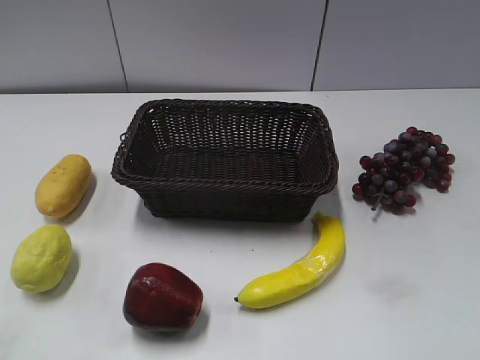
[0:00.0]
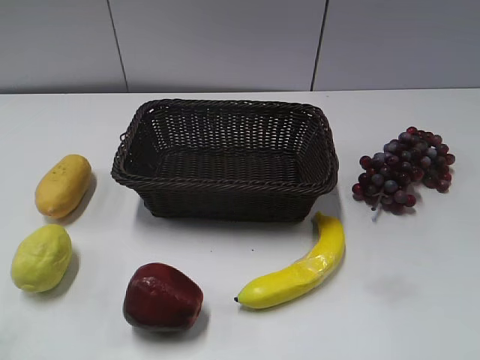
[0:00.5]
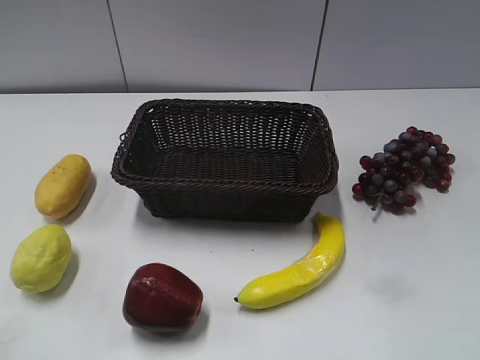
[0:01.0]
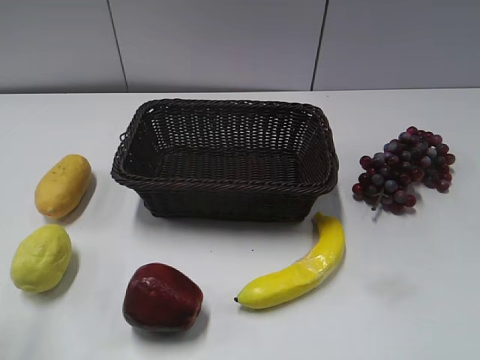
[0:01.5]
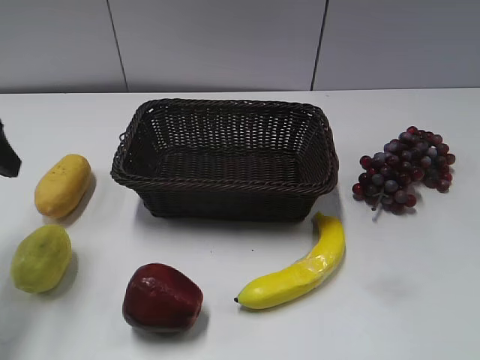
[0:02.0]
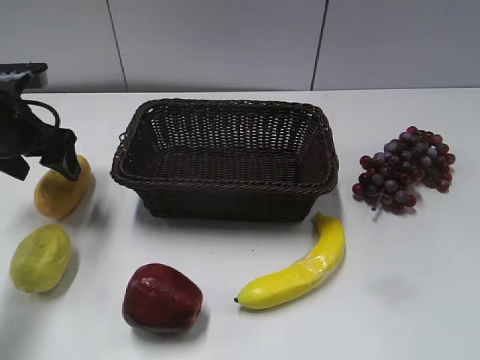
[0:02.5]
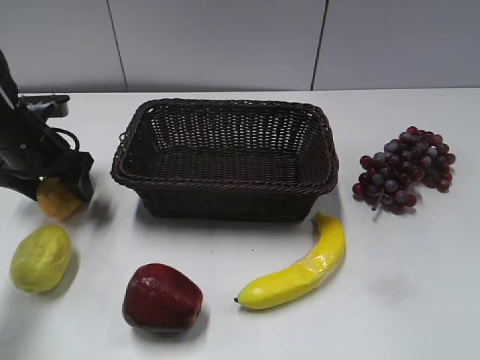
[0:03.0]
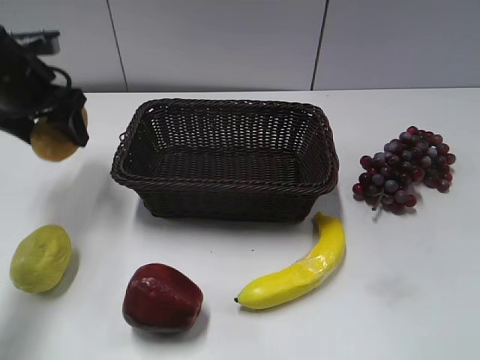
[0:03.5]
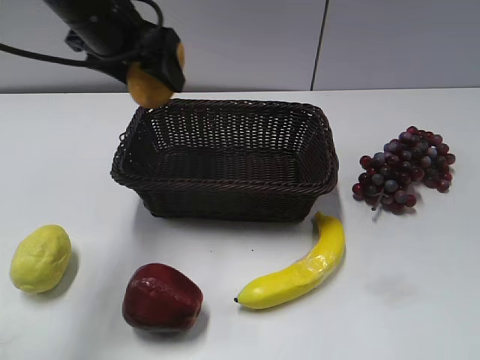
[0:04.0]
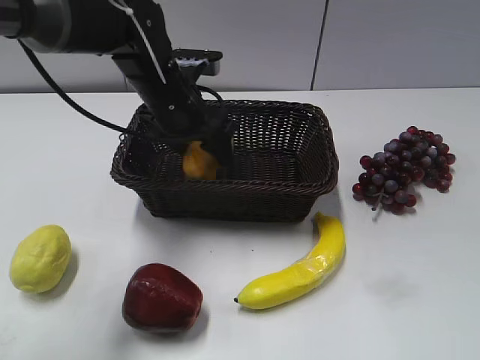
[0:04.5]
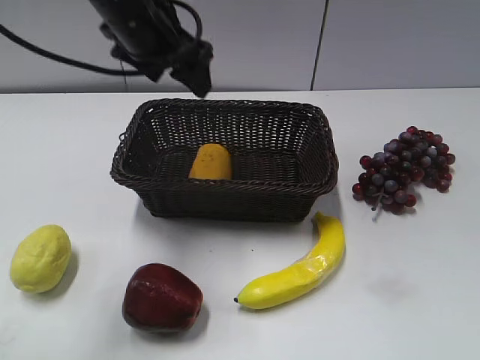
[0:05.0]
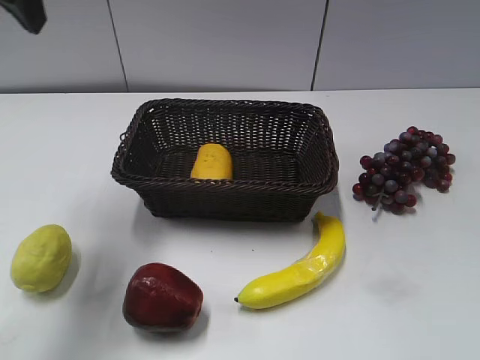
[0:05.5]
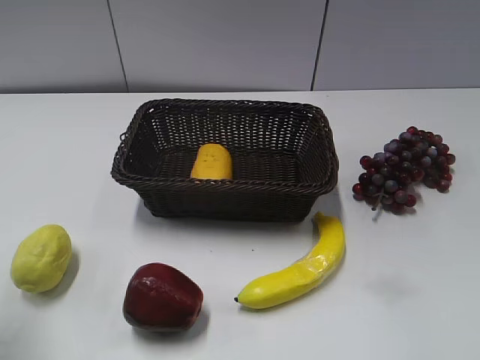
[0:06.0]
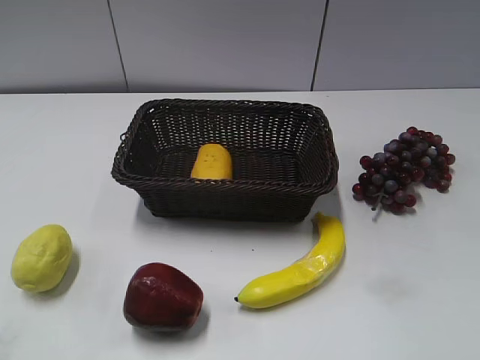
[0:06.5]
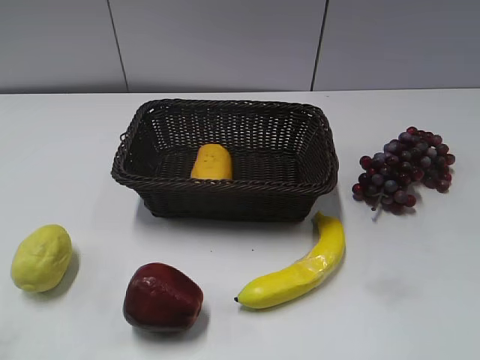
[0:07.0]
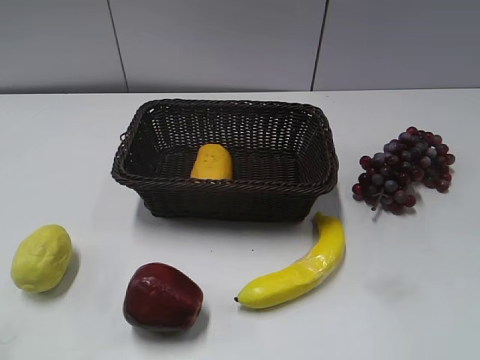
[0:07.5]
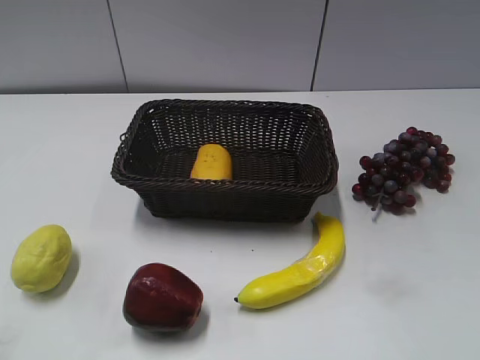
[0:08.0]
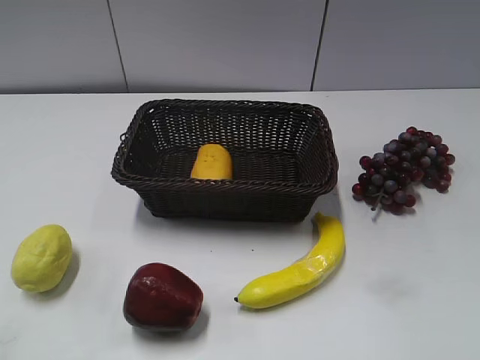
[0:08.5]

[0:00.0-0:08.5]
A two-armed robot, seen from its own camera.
Step, 0:02.0 to 0:03.0: Grasp the mango with left gripper.
Step, 0:03.5 to 0:04.5: Place the mango in the basket with left gripper.
0:02.0 to 0:04.0: The left gripper goes approximately 20 cm to the right and forward, and goes downward and returns, roughly 10 cm each way.
0:04.0 to 0:06.5: The left gripper moves backward and to the left, approximately 40 cm.

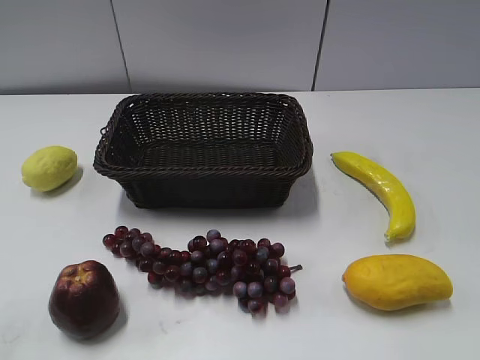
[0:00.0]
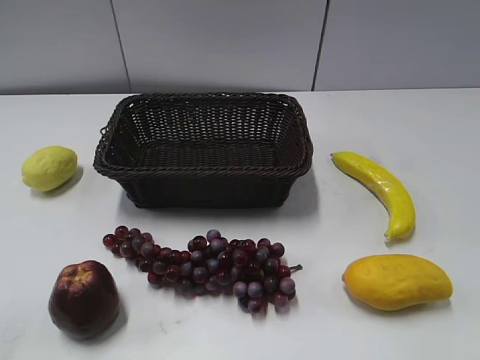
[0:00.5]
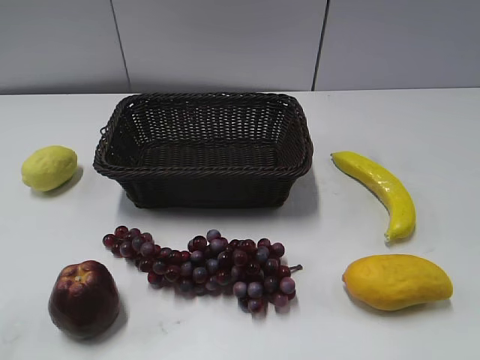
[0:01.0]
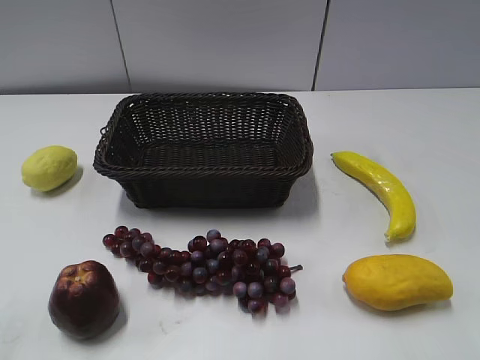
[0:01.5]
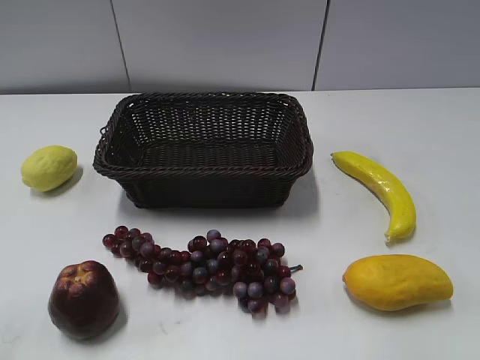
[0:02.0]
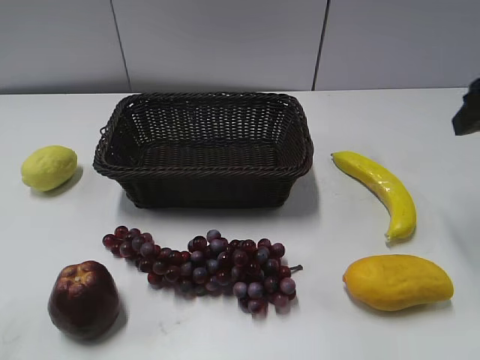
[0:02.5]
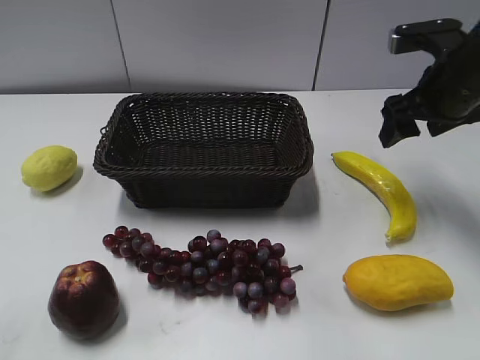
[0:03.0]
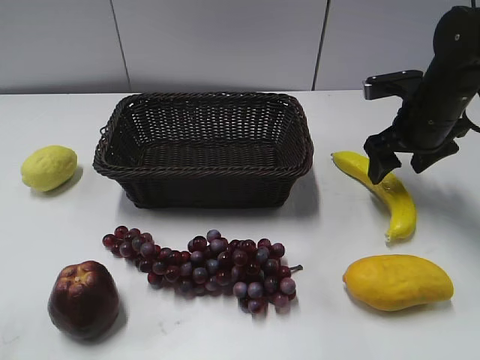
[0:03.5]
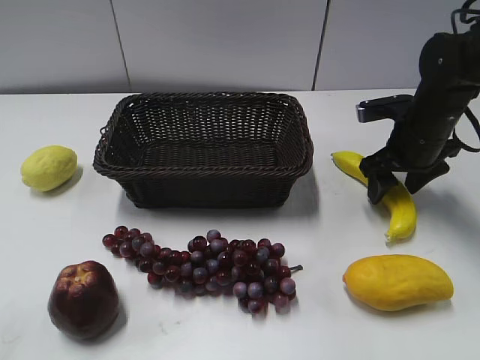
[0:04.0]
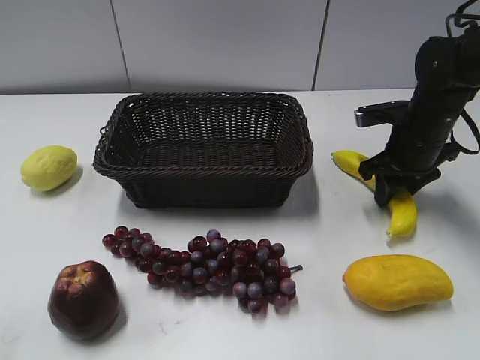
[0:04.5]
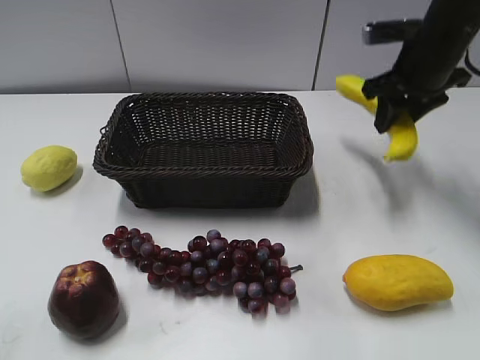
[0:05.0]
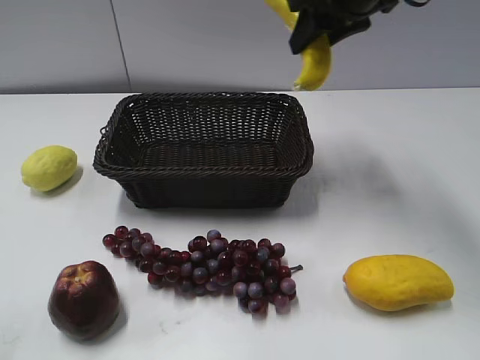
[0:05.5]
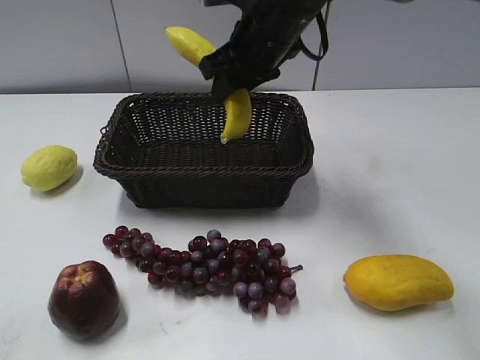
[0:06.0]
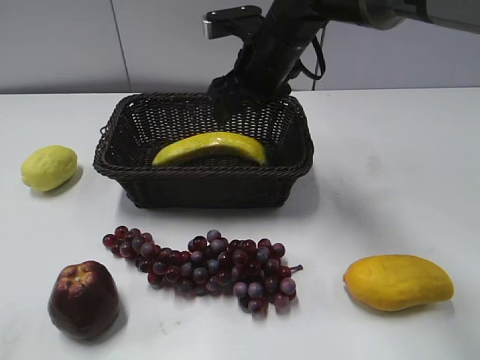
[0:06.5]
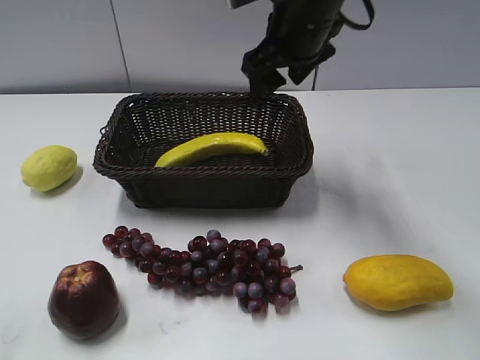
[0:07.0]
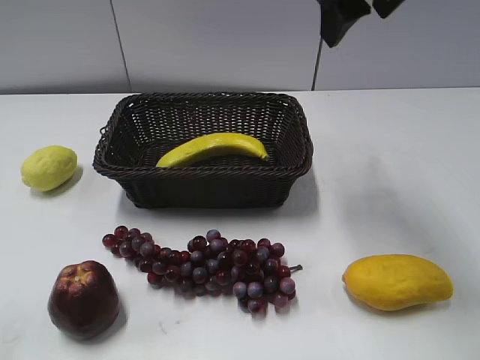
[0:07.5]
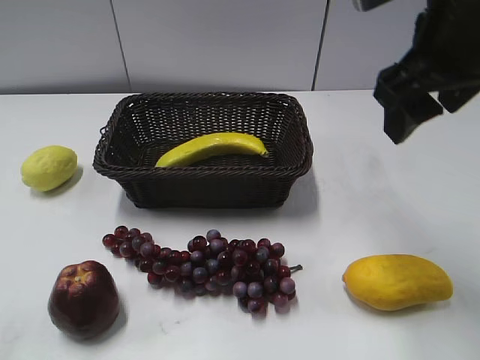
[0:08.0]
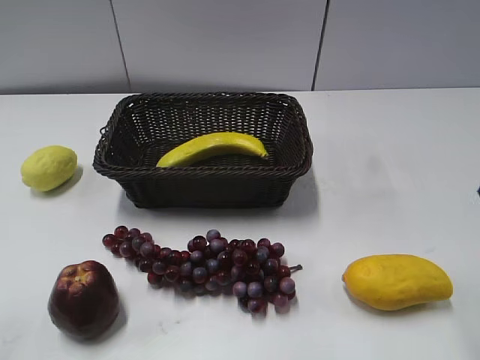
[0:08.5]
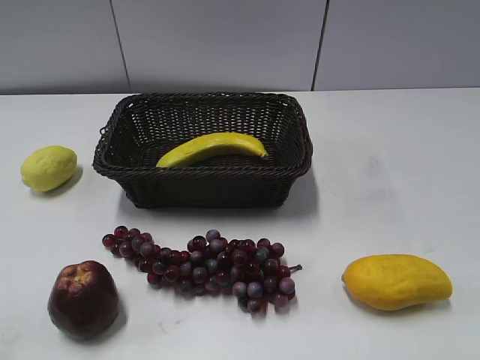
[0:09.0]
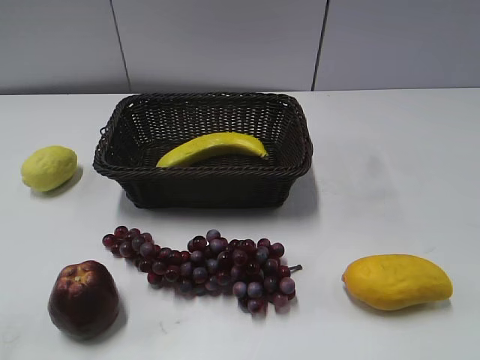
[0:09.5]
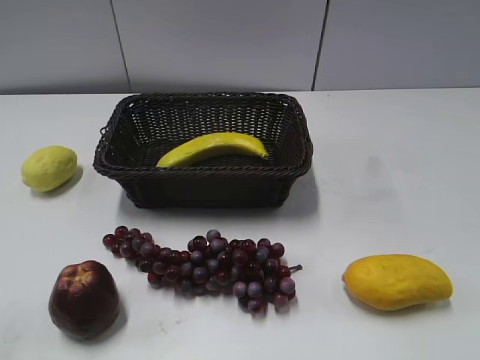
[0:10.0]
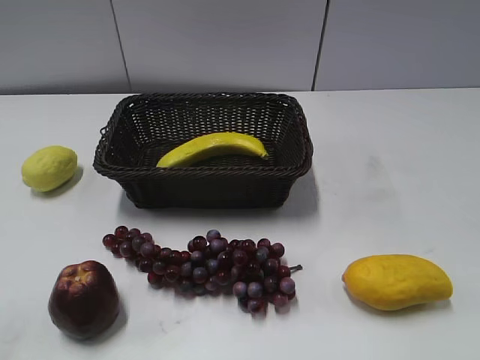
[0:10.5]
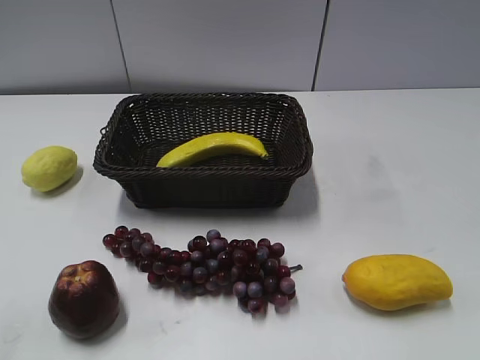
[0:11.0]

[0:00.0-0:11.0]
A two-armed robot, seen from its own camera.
Step, 0:02.5 to 0:04.0: Grasp the banana with right gripper.
Step, 0:04.5 to 0:06.5: Place the banana in the basket with right gripper.
0:02.0 to 0:03.5: The right gripper heads forward, downward and to the left, covering some 25 cm.
0:03.5 to 0:05.5: The right gripper goes approximately 20 cm upward and to the left, and closes up.
0:05.5 to 0:07.5: The right gripper shifts about 10 cm backward and upward, and opens.
0:07.5 to 0:09.0: The right gripper goes some 30 cm backward and to the right.

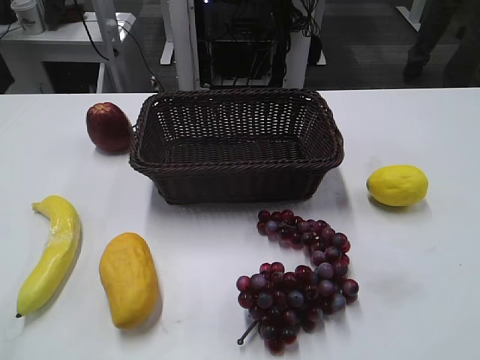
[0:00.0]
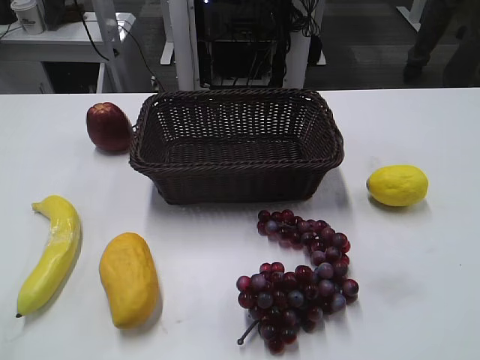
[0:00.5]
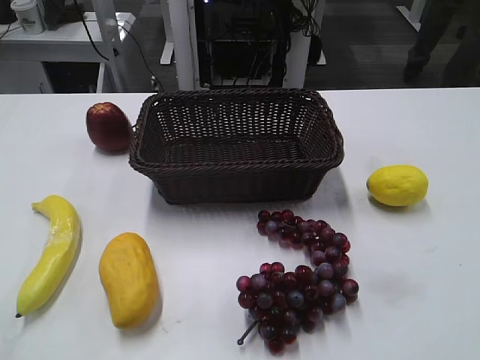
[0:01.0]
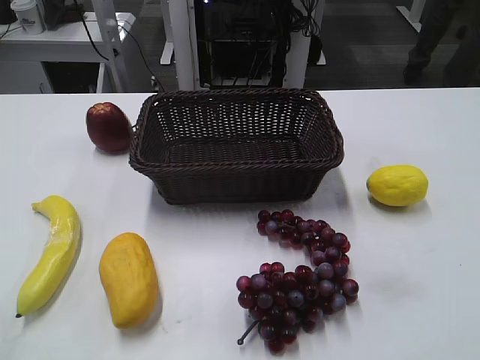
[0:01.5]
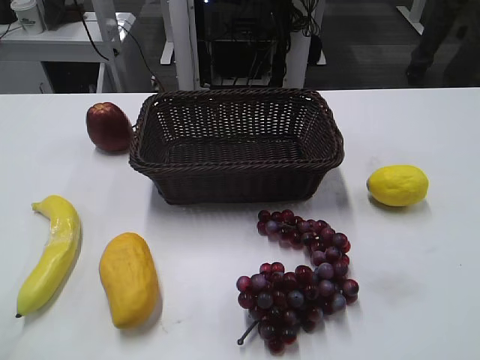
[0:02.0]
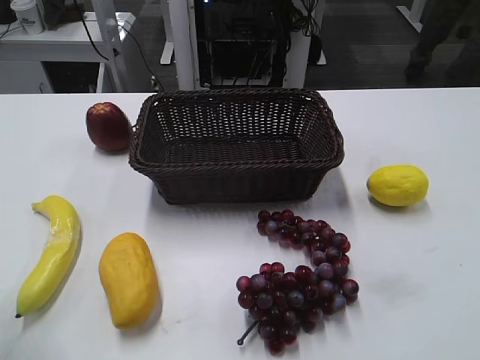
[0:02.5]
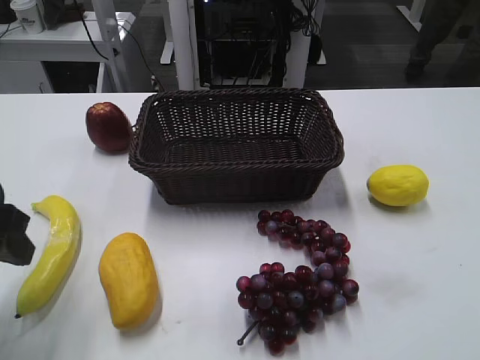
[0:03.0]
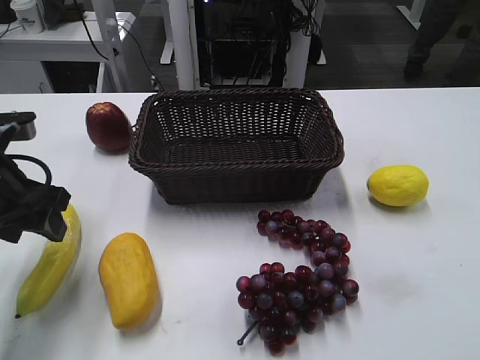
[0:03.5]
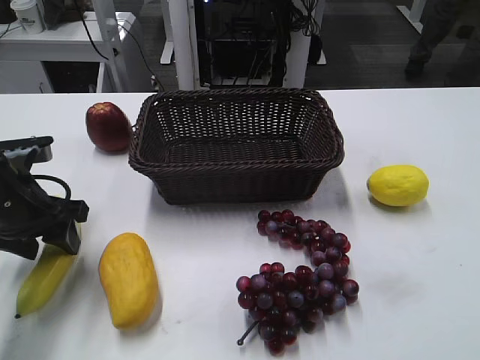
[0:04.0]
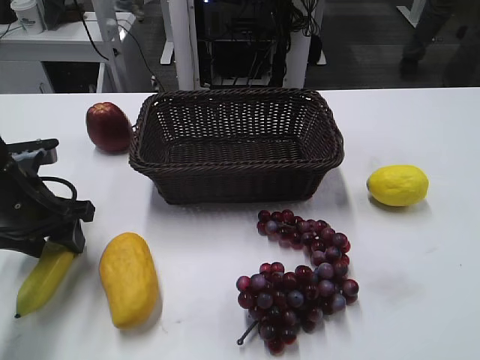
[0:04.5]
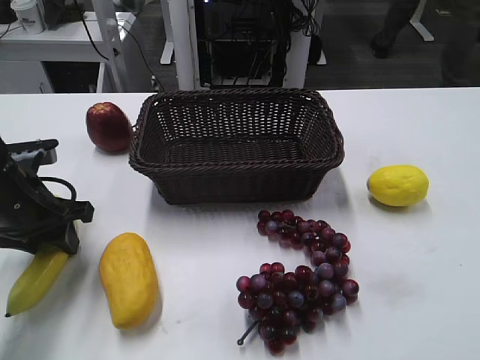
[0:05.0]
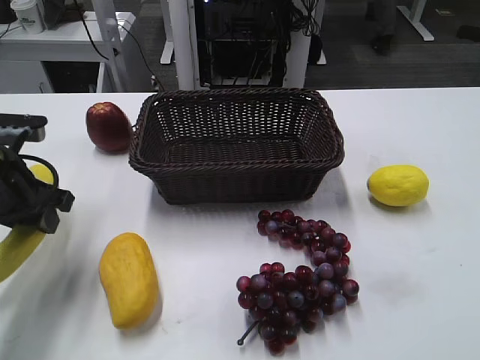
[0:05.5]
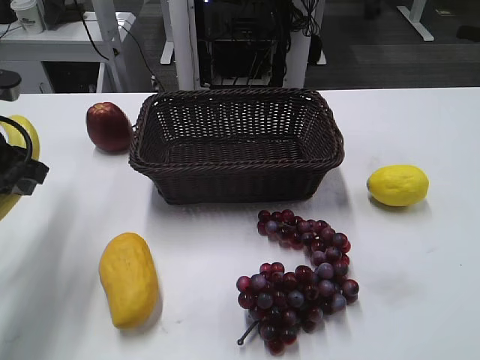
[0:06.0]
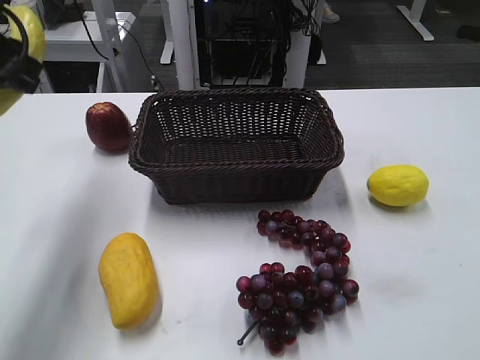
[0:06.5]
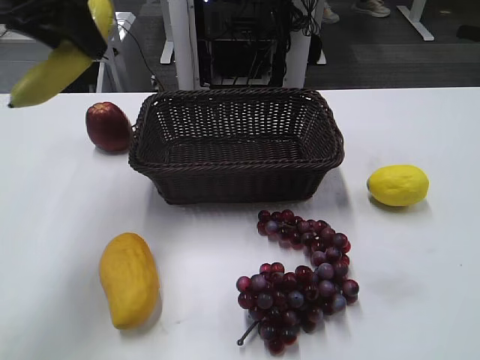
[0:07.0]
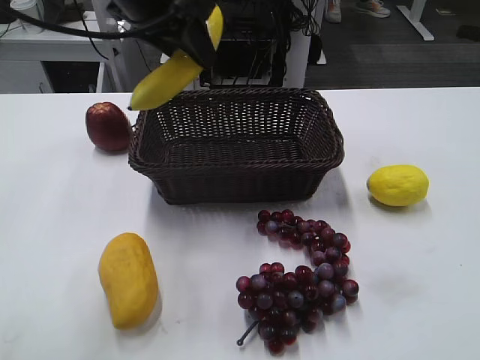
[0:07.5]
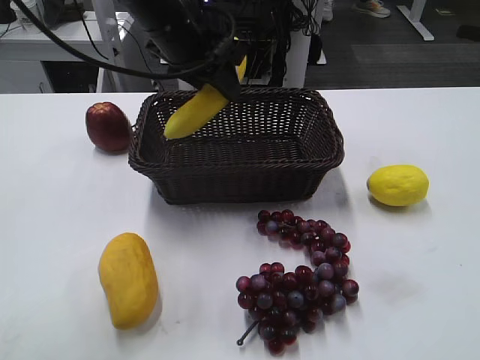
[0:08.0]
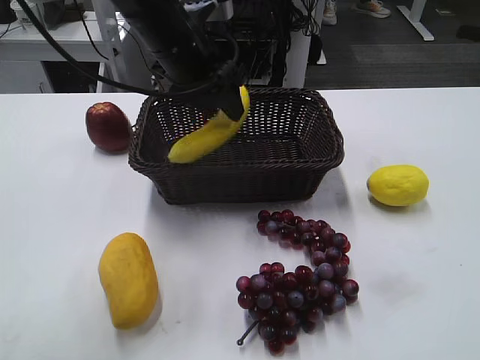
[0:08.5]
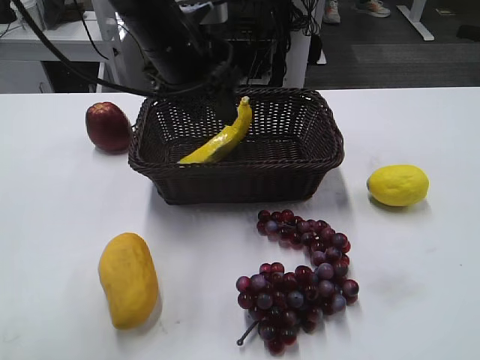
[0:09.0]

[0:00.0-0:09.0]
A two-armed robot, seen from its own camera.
Step, 0:03.0 to 0:04.5: Grasp the banana with left gripper.
Step, 0:05.0 to 0:08.5: Place the banana in the basket with left gripper.
0:02.0 to 0:04.5: The left gripper shifts about 25 cm forward and downward.
0:04.5 to 0:07.0: The left gripper travels upward by roughly 25 cm, and closes up.
0:07.0 to 0:09.0: The left gripper shifts approximately 15 cm to the right and downward, and opens.